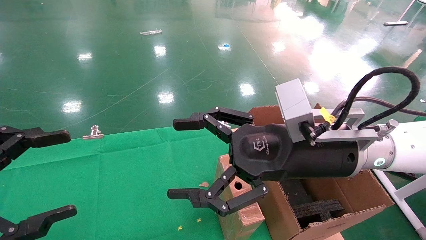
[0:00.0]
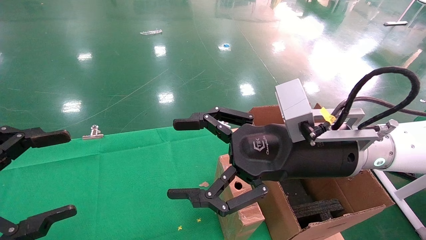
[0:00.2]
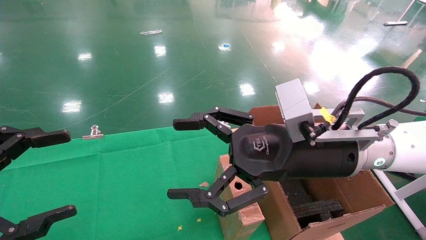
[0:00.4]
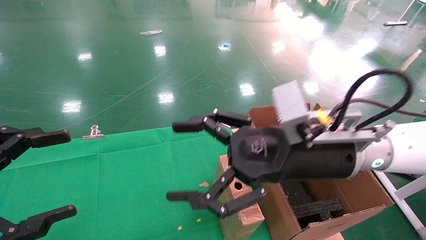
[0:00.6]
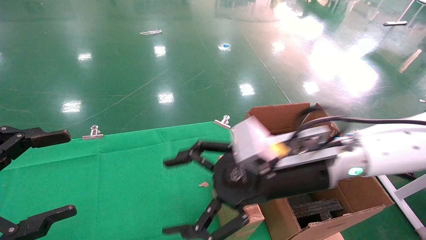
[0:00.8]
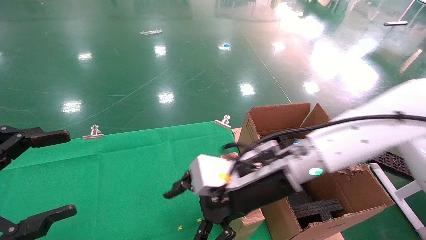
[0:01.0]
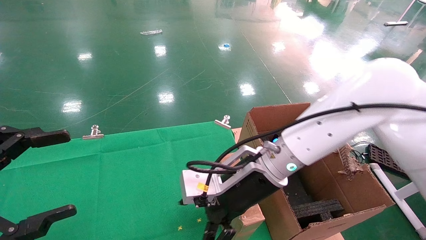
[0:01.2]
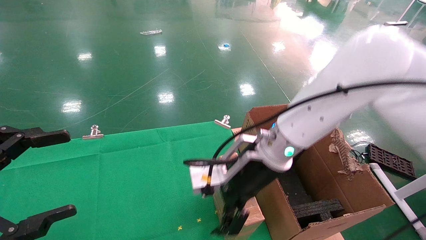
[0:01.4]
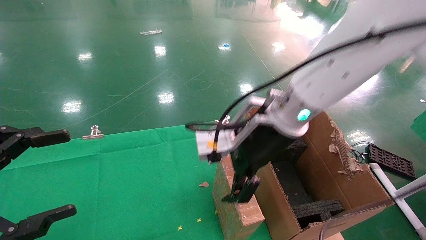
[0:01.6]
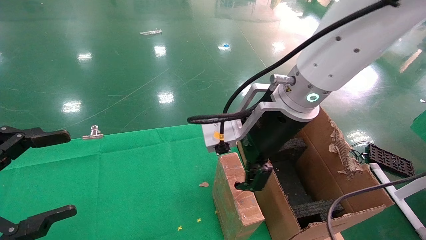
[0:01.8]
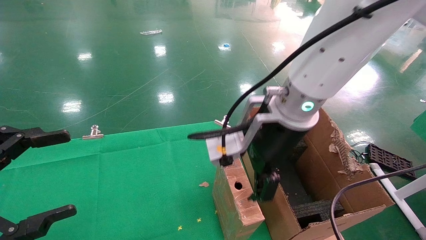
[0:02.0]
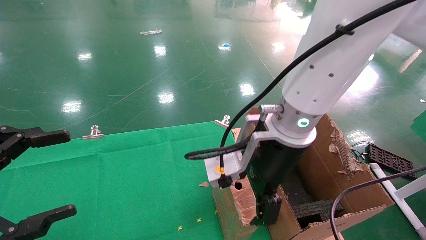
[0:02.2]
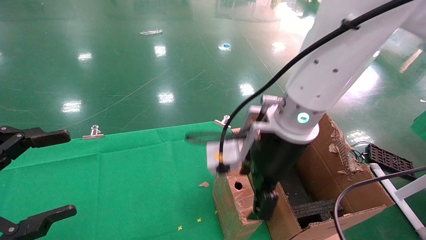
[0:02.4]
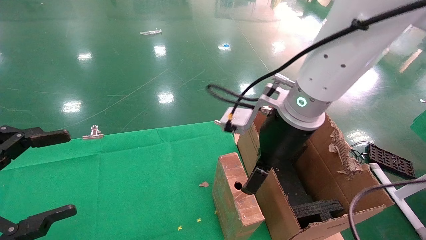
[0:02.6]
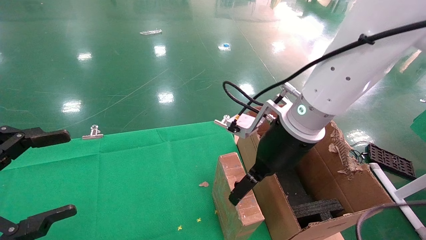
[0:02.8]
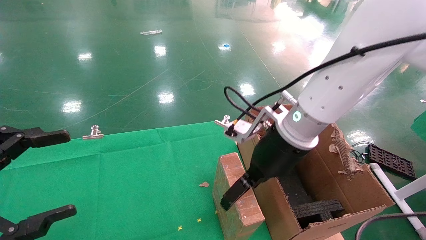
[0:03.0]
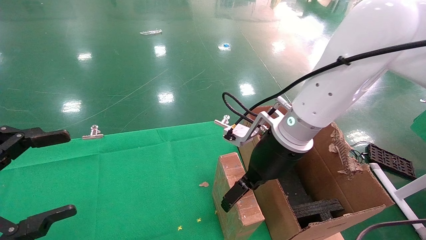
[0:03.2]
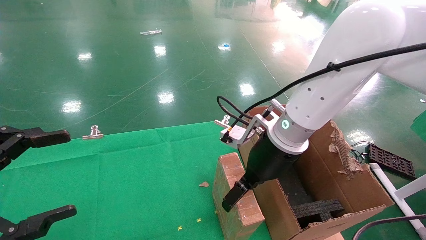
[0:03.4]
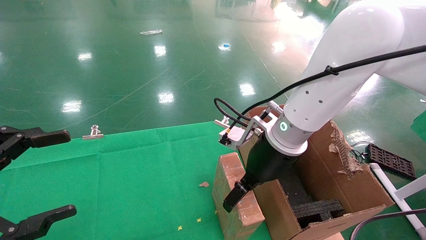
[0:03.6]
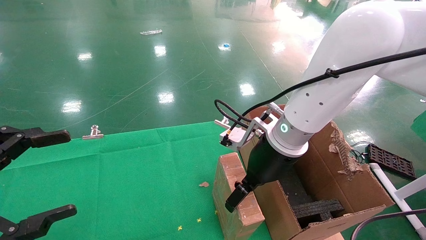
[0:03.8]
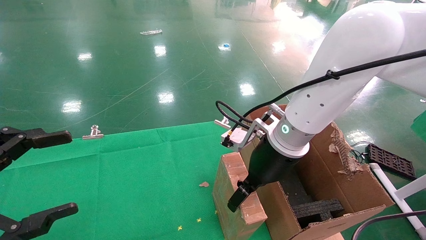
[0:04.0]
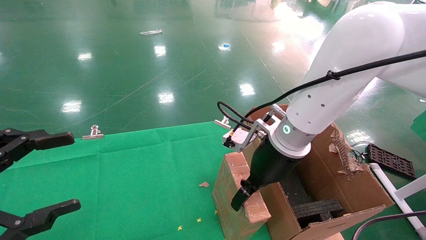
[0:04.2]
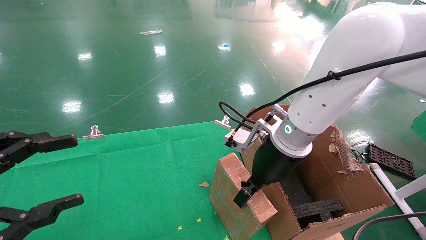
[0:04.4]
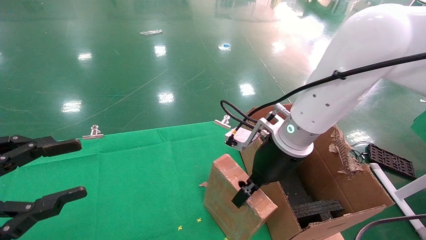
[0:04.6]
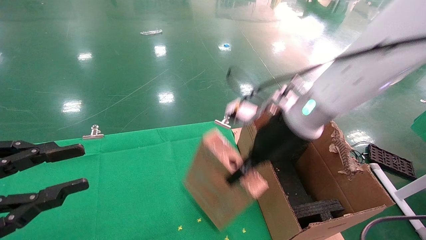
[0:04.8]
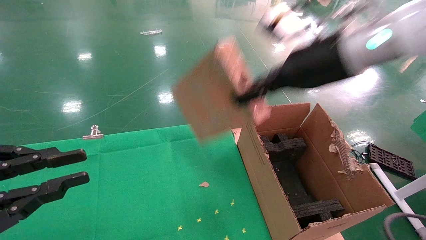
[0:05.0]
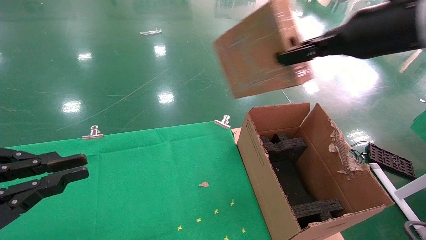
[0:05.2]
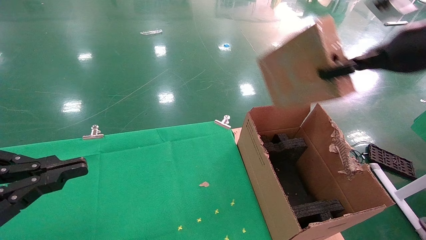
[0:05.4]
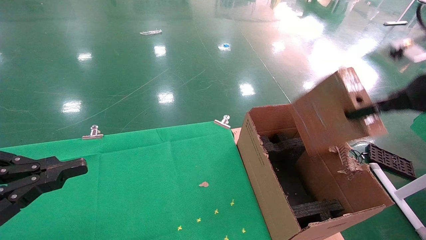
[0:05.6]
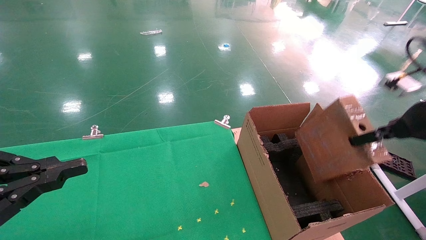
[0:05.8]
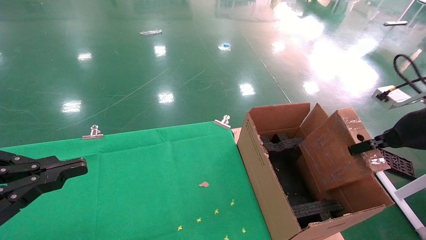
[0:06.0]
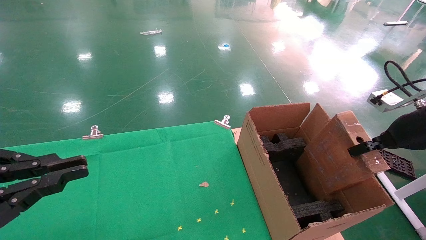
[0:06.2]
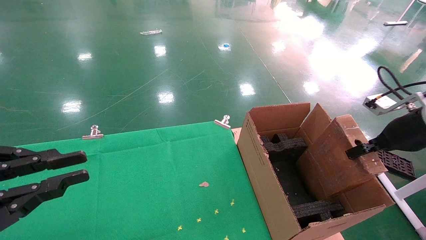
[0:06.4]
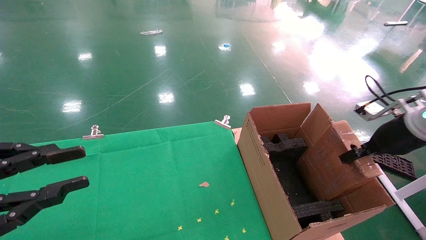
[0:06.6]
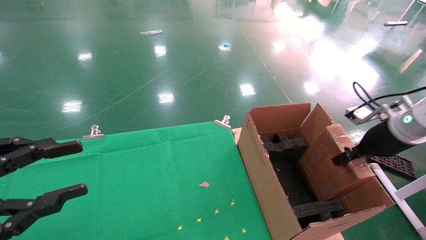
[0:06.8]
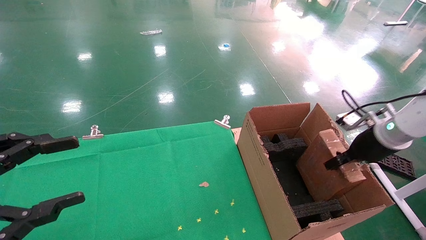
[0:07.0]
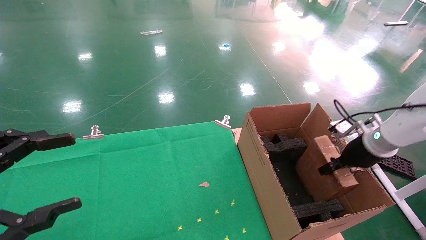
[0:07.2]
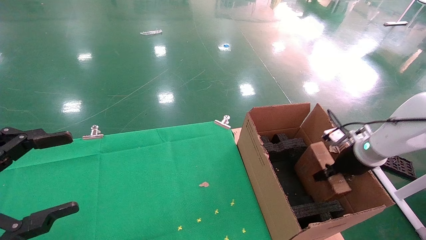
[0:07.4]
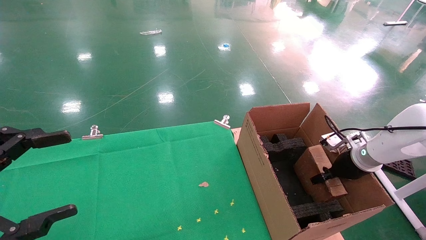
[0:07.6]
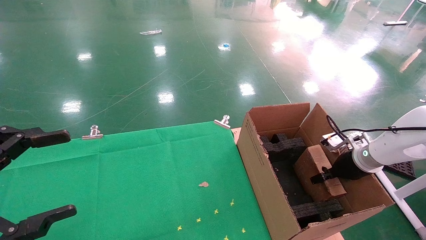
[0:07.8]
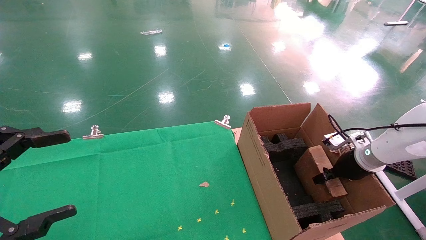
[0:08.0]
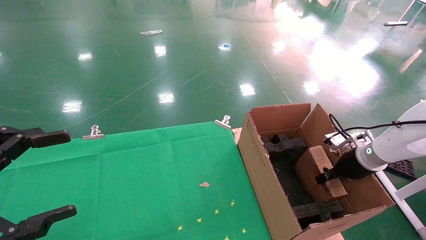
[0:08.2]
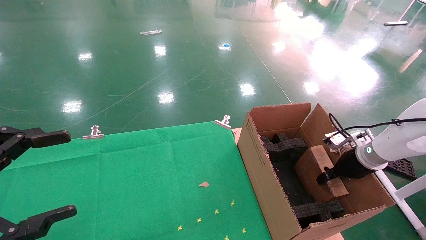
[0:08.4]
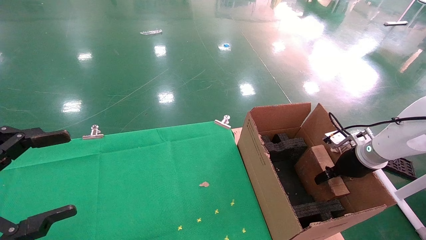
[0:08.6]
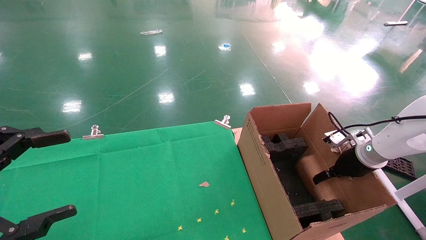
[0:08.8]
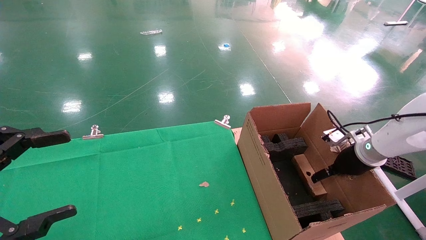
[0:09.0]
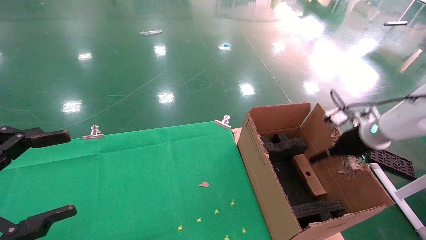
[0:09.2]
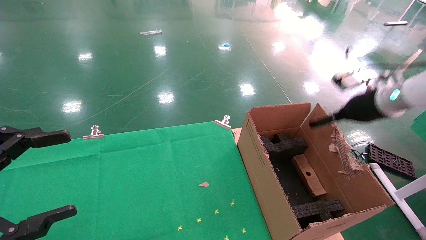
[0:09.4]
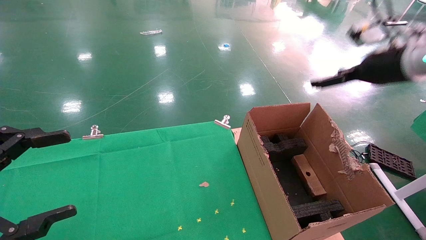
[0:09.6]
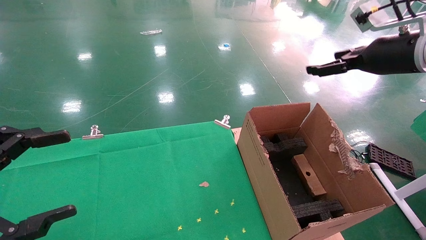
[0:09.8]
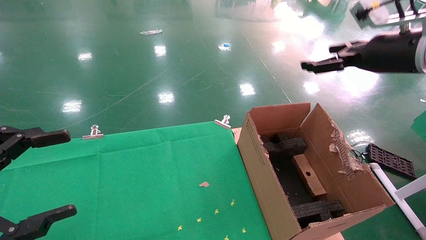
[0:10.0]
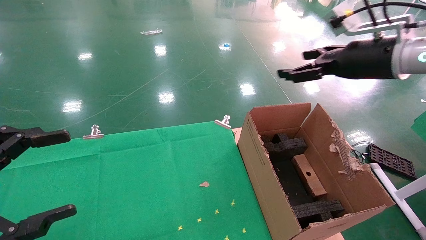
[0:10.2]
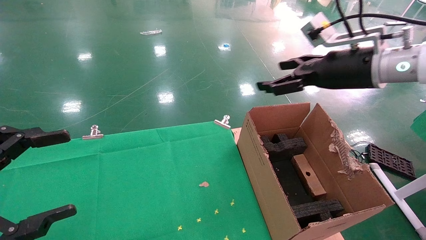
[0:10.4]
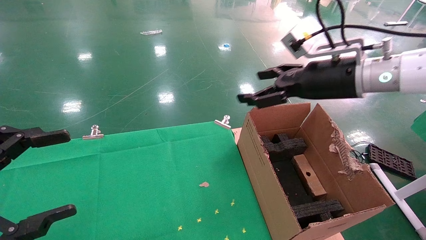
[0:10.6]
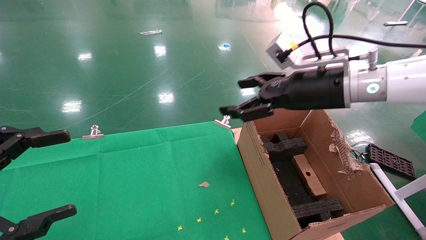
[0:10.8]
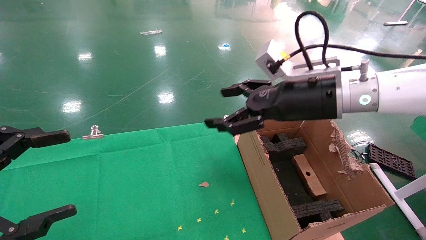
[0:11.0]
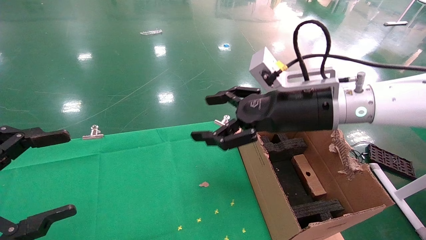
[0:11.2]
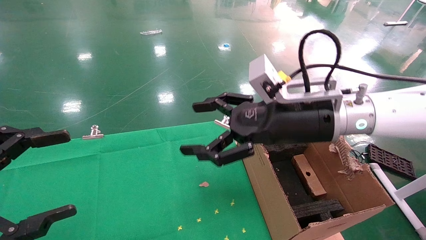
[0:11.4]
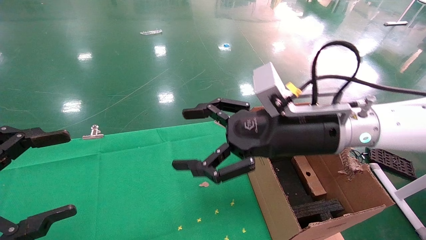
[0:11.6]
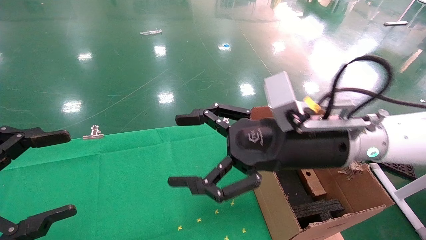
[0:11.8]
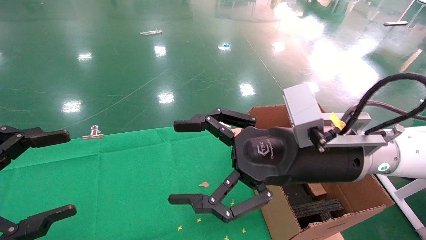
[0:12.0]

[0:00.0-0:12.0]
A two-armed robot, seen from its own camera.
Task of the whole recording: using a robotic arm to pick up a cardboard box and palace it the carton.
Step, 0.8 to 4.8 s: Pick up the mouse and the power cord paper box.
Step, 5.0 to 9.2 s: Place the mouse and the power cord paper box into the container.
0.0 to 1.6 s: The right gripper moves to the left and forward, some 10 cm.
3.0 to 4.4 s: The right gripper closes its fingers.
4.4 to 6.0 s: The left gripper closes, while the right gripper shifts approximately 30 cm to the right, and closes its fingers.
6.0 to 7.6 s: The right gripper heads downward and forward, covering approximately 20 cm. Meanwhile the left gripper opens.
7.6 to 9.0 s: The right gripper opens.
9.0 to 10.4 s: The right gripper shifts roughly 25 cm upward and to the left.
10.4 to 12.0 s: The right gripper moves to the left, downward and backward, approximately 20 cm.

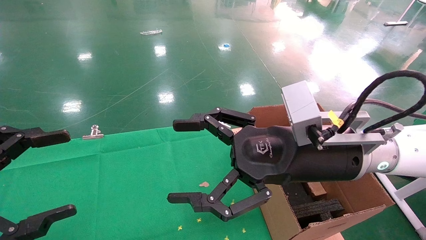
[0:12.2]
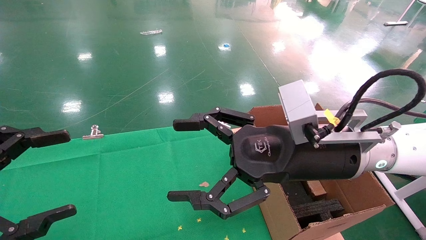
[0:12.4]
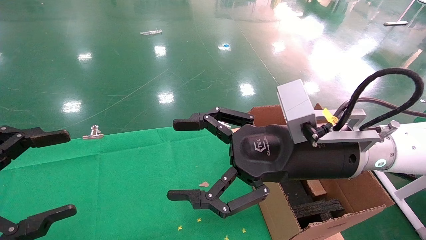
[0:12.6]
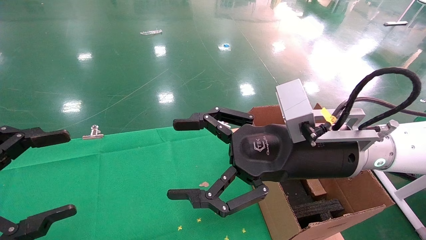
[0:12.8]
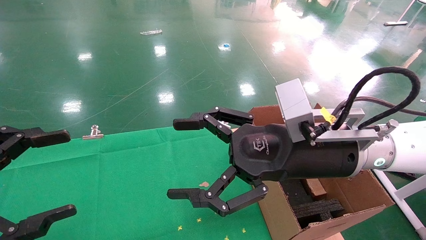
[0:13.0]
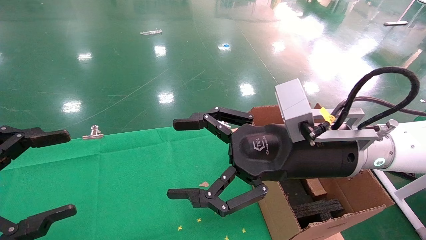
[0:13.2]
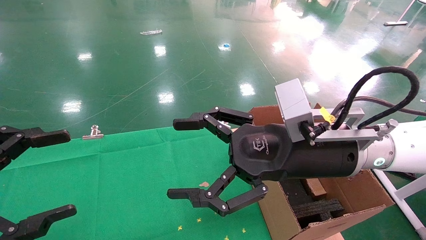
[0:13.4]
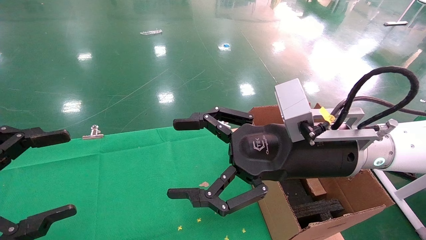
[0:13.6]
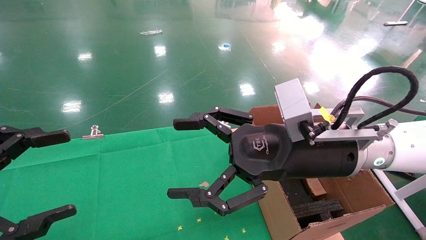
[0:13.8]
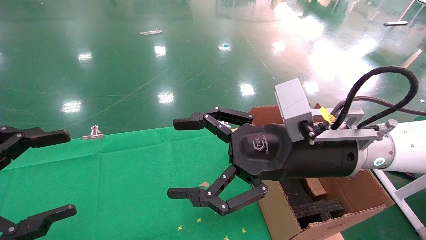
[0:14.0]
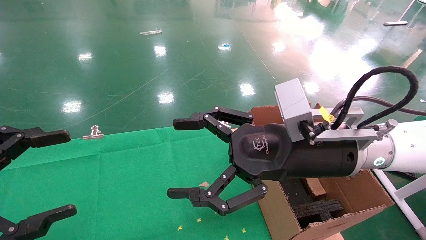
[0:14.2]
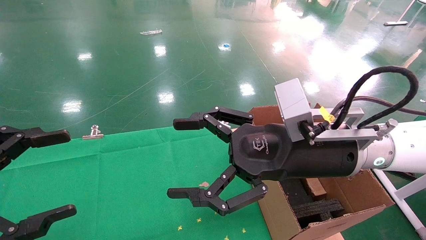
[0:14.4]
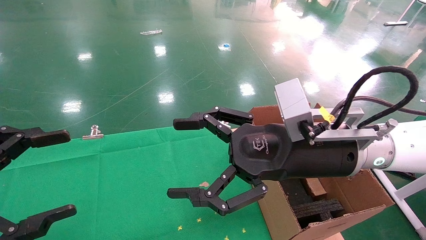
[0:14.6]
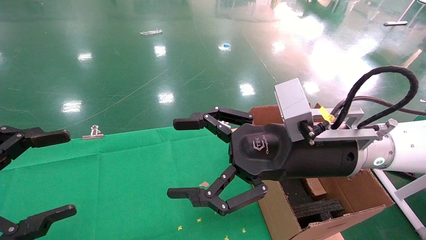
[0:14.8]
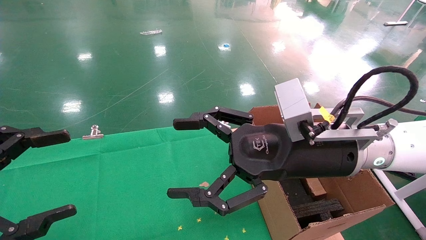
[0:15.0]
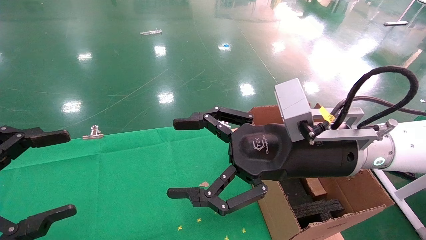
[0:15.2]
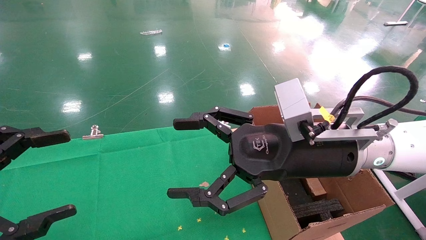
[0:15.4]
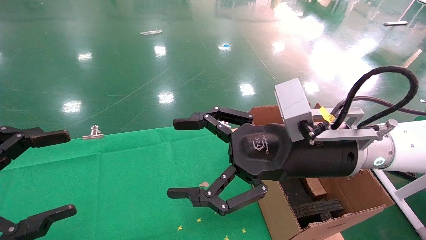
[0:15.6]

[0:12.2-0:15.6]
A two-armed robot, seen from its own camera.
Task of the whole recording: using a robotic arm to pick up a cardboard box and palace it the carton.
12.2 to 15.6 s: Both grippers stay put.

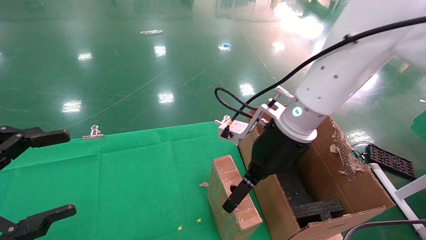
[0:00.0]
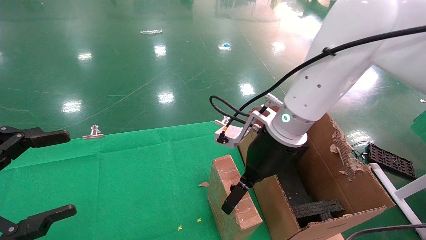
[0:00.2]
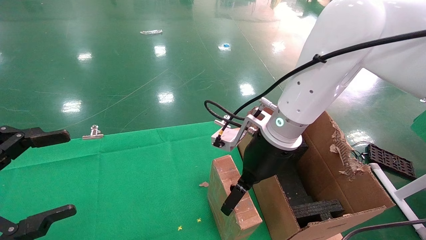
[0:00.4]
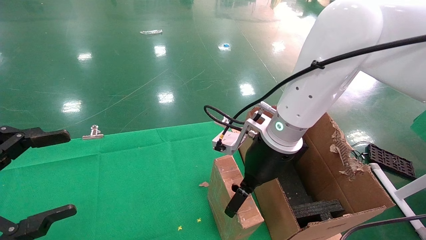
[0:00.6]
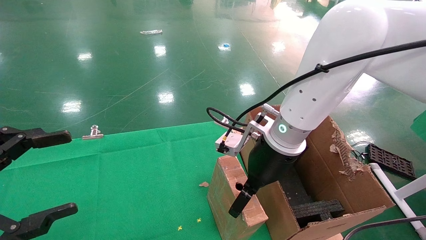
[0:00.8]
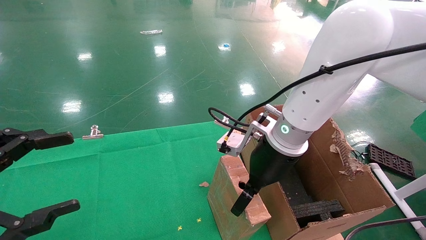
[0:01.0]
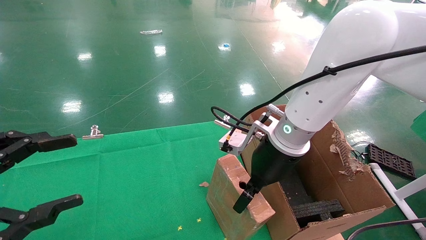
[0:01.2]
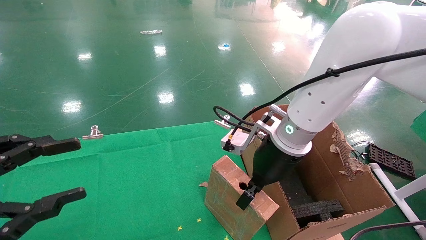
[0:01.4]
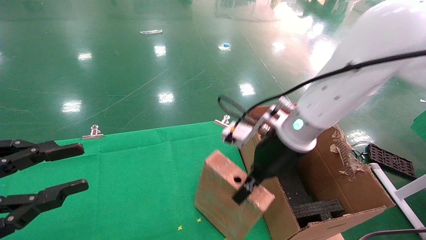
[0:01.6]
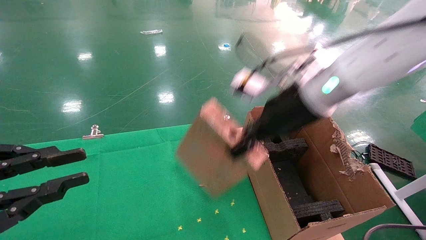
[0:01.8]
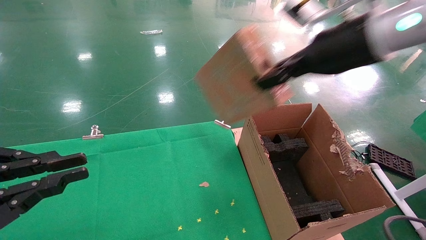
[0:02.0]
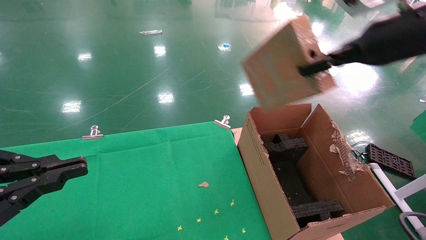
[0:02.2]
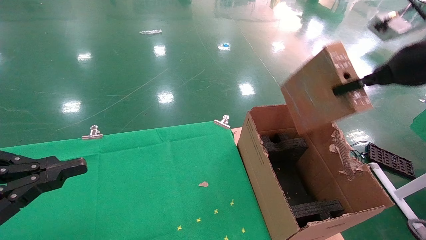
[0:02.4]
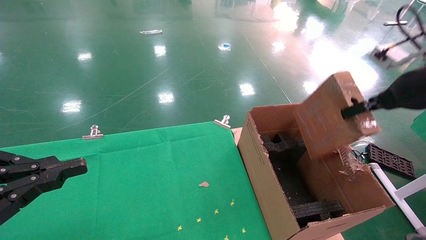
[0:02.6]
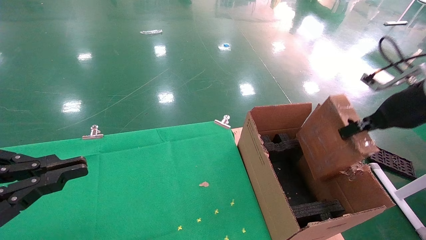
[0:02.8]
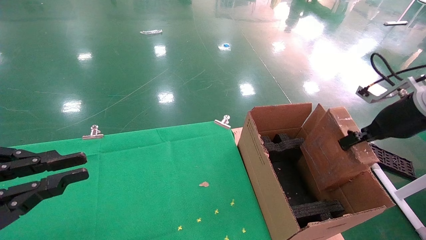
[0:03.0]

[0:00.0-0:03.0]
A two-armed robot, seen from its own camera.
Task of the whole recording: using a robotic arm to pick up a cardboard box and palace it the carton.
0.0 to 1.6 s: The right gripper closes its fingers. Meanwhile the left gripper closes its fingers.
1.6 to 3.0 s: The left gripper closes up. The right gripper travels to the right by roughly 25 cm.
